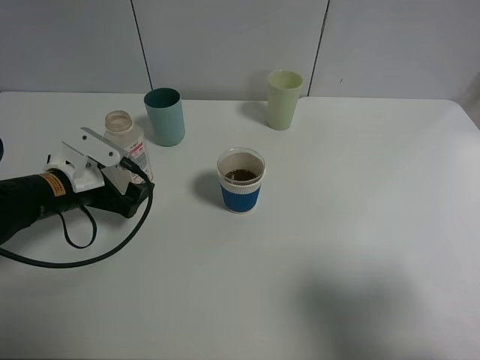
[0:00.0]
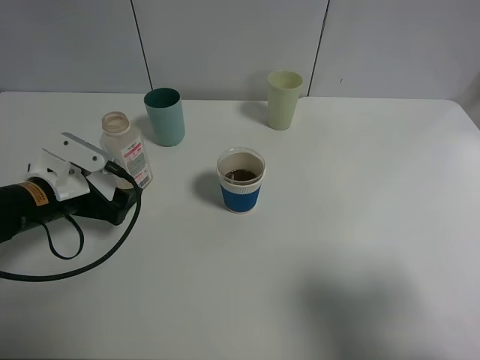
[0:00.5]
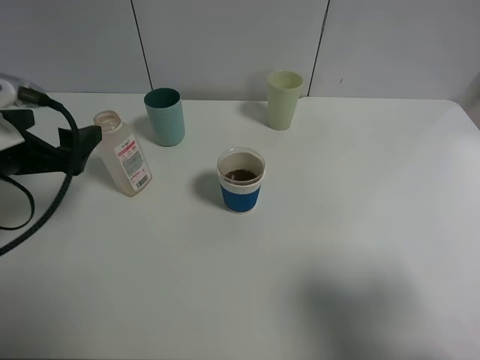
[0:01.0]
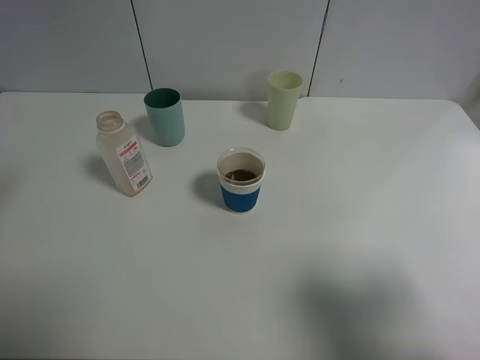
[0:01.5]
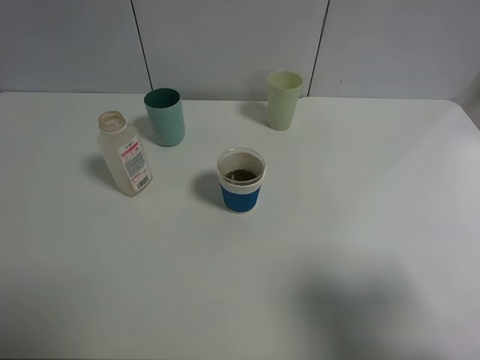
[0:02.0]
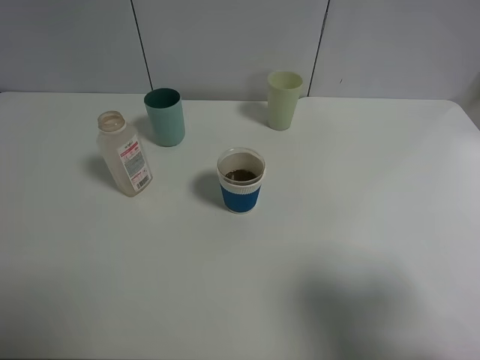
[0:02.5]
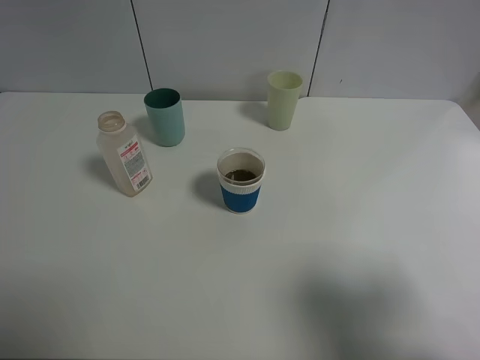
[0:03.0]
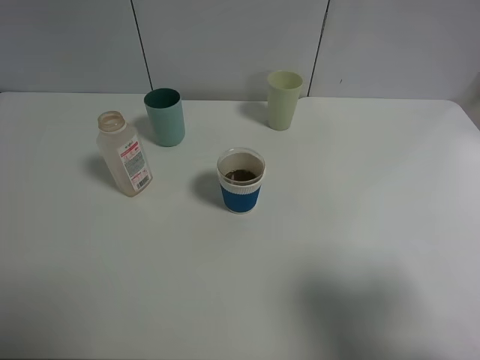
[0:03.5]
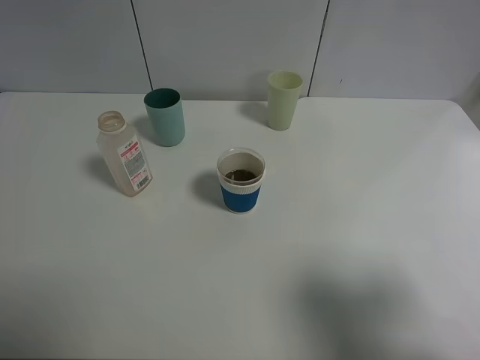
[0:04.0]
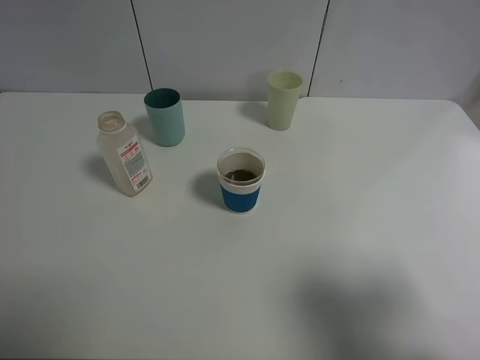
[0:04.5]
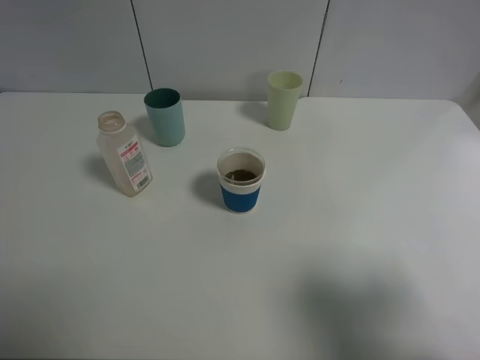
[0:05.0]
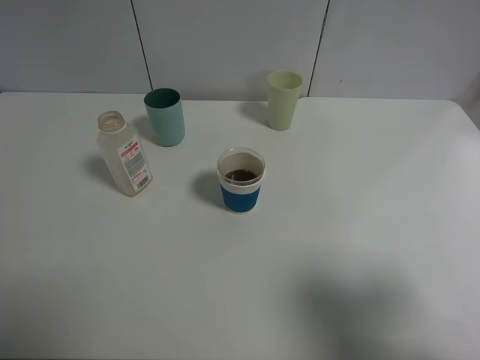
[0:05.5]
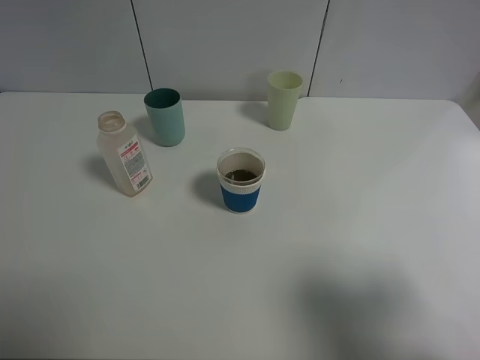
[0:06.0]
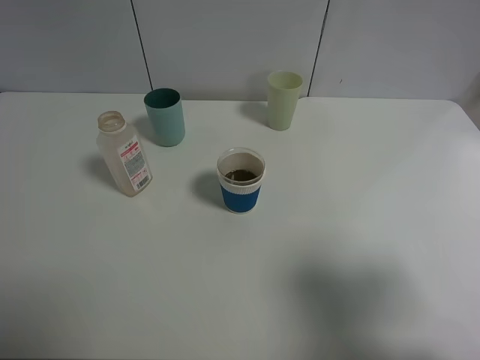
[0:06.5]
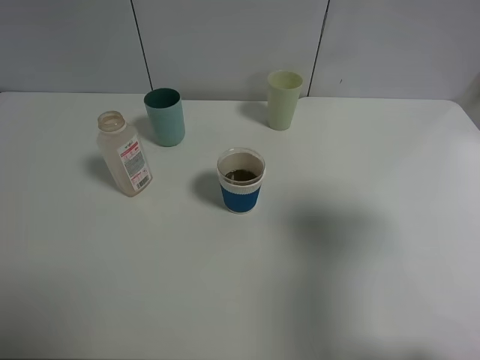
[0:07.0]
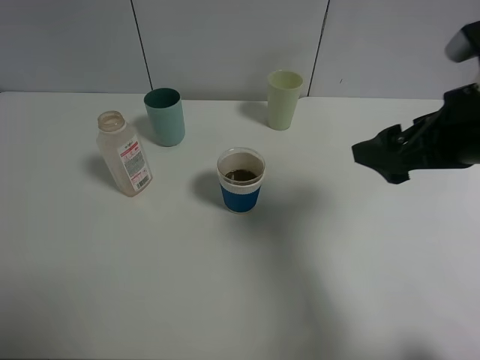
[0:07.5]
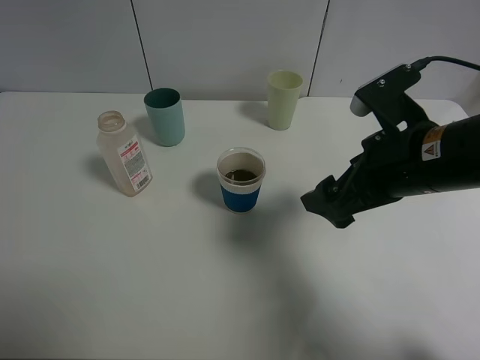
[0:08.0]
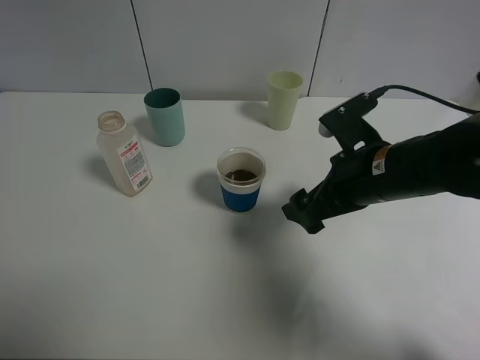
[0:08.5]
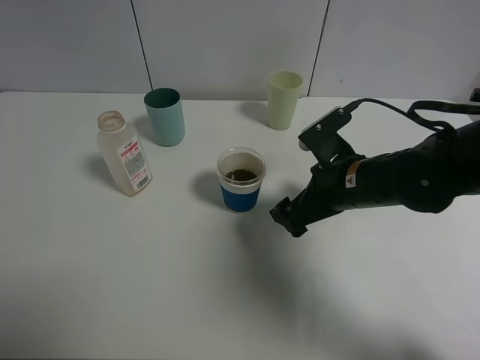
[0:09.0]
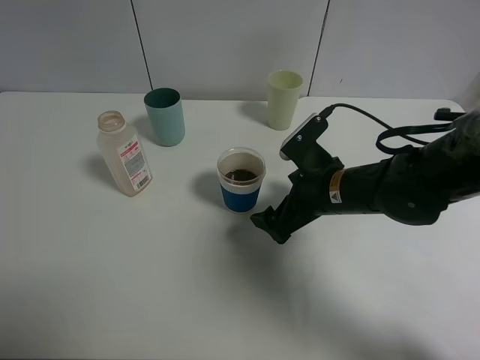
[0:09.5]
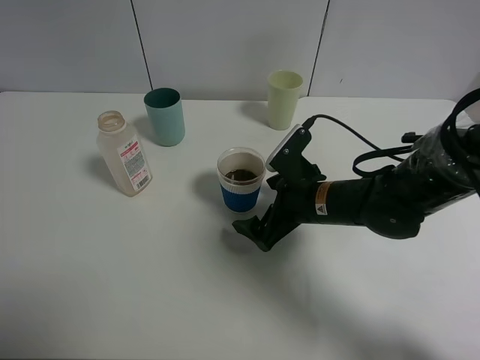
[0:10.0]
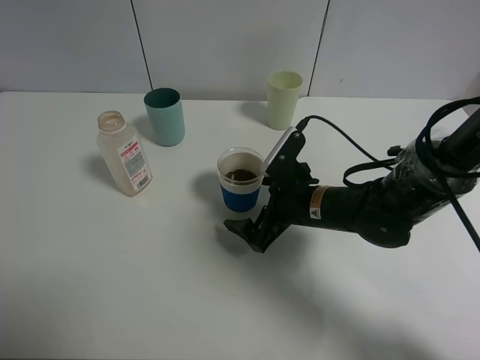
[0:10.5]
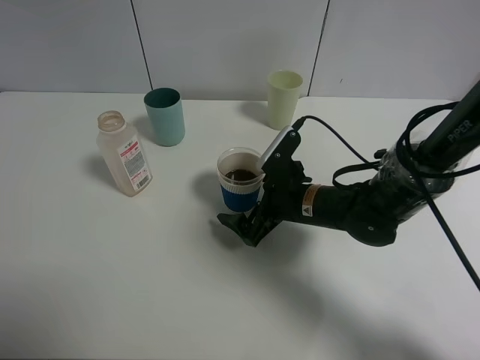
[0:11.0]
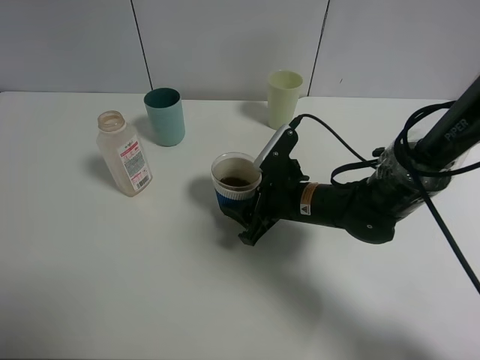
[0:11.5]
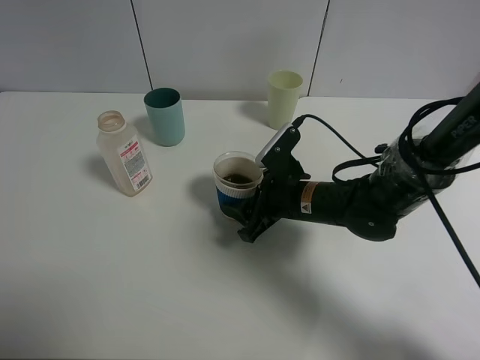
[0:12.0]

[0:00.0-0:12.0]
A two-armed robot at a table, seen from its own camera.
Task of the whole recording: use a clamp to hold the bottle of the drink, pour the beverage into a random cup, then clamp the cup containing the drink and pour the drink into another random cup.
0:00.0 to 0:02.0: The left gripper moves upward and backward, some 30 cm.
0:04.0 to 0:06.0: Both grippers stay put.
0:06.0 to 0:08.0: The right gripper heads forward and to the left, covering some 20 cm.
0:08.0 to 0:10.0: The right gripper is displaced downward, to the left and forward by approximately 15 cm.
0:10.0 to 0:12.0: The right gripper closes up.

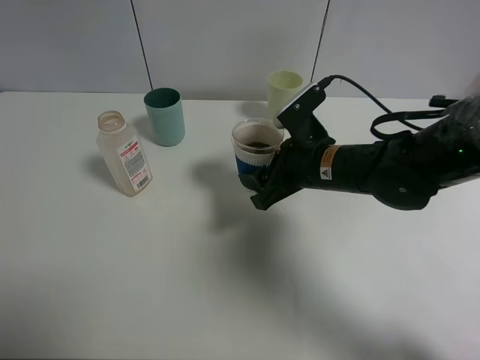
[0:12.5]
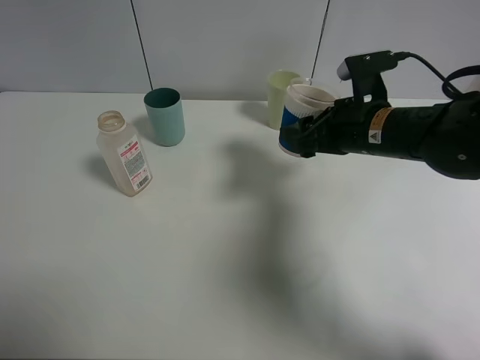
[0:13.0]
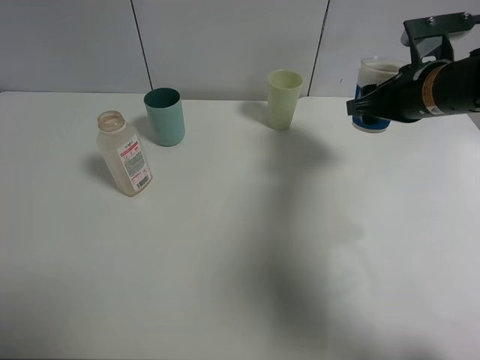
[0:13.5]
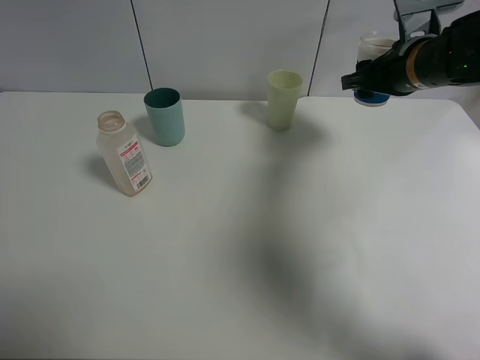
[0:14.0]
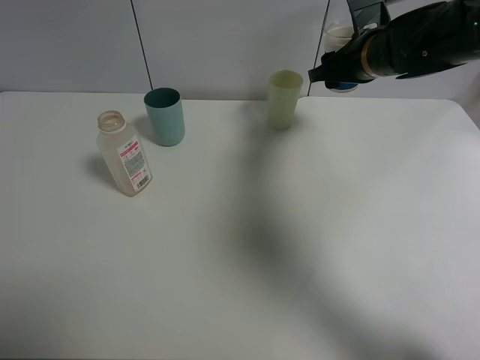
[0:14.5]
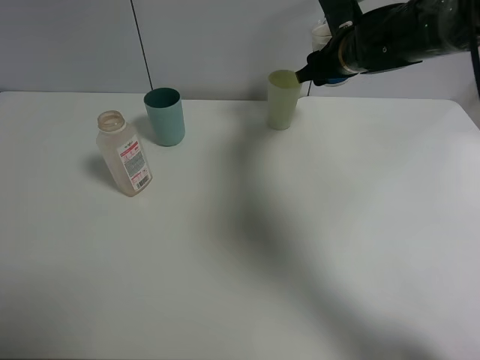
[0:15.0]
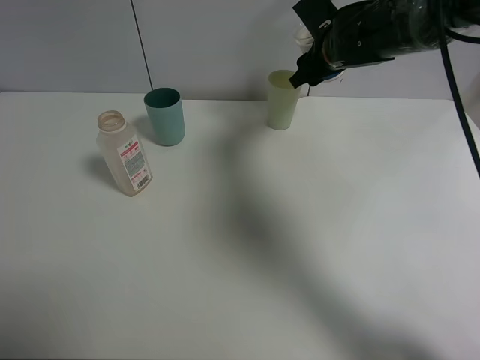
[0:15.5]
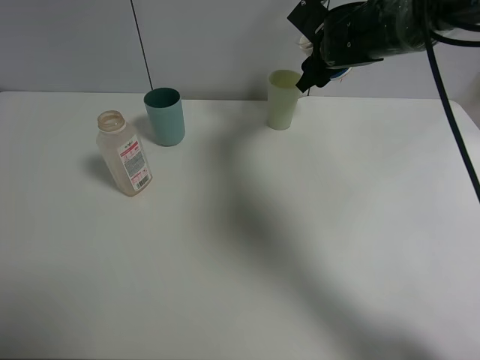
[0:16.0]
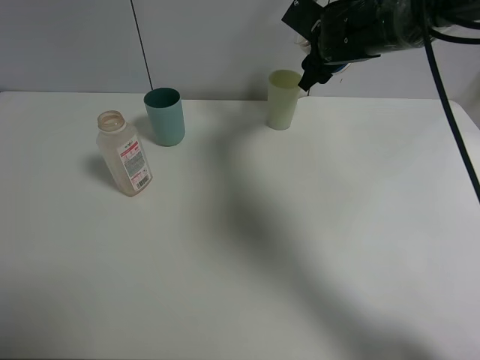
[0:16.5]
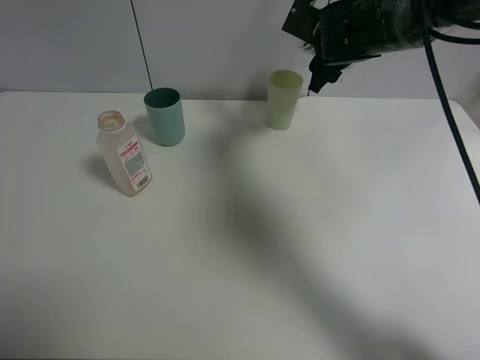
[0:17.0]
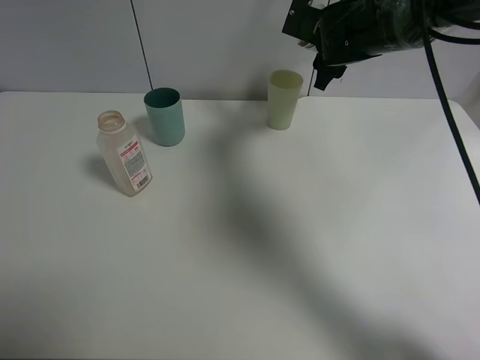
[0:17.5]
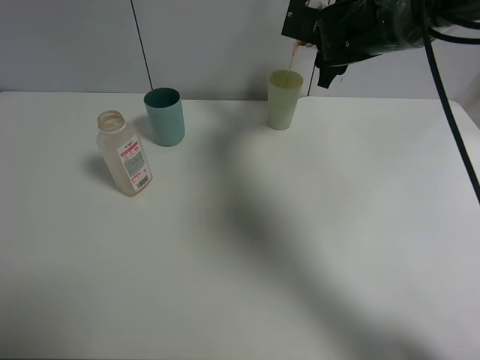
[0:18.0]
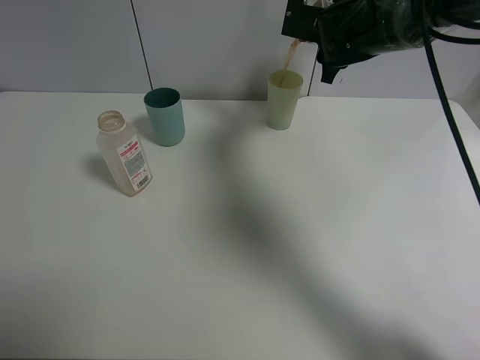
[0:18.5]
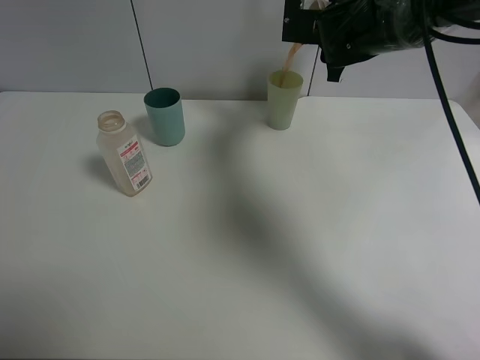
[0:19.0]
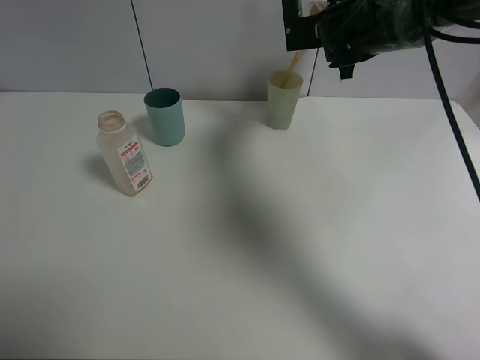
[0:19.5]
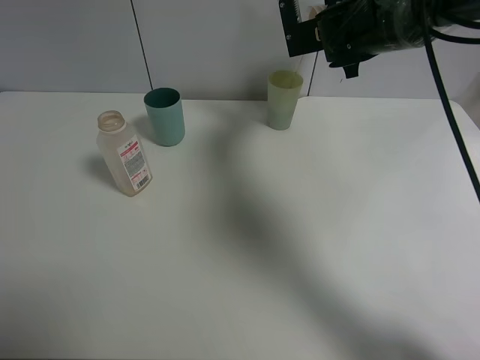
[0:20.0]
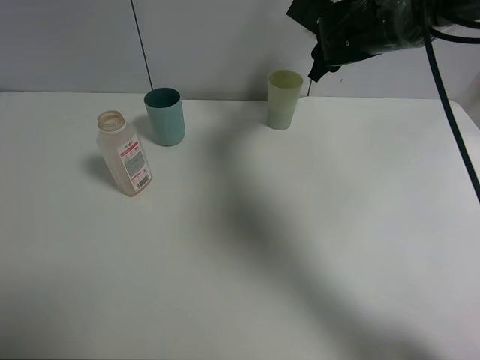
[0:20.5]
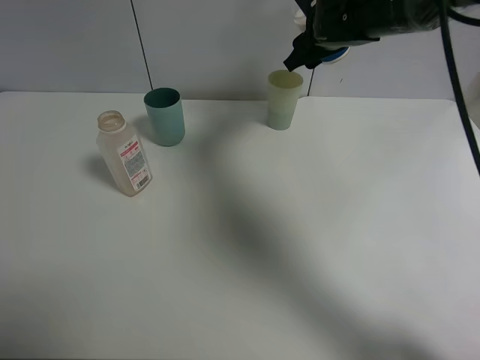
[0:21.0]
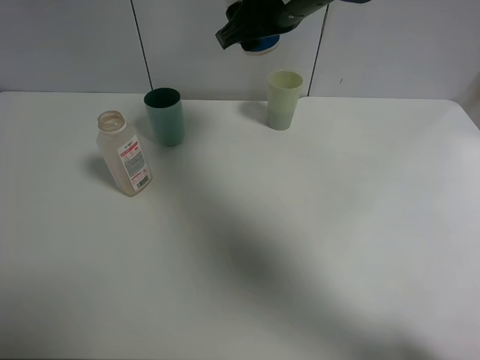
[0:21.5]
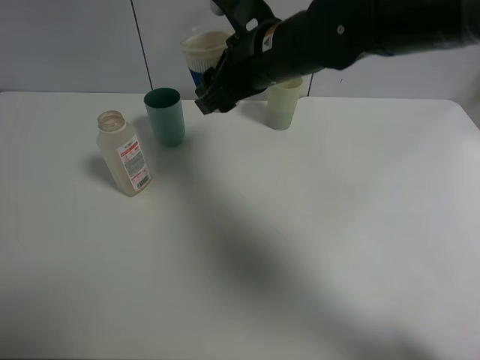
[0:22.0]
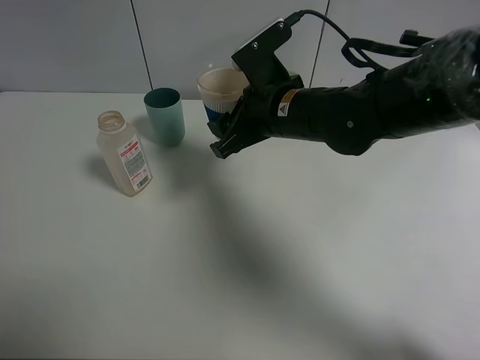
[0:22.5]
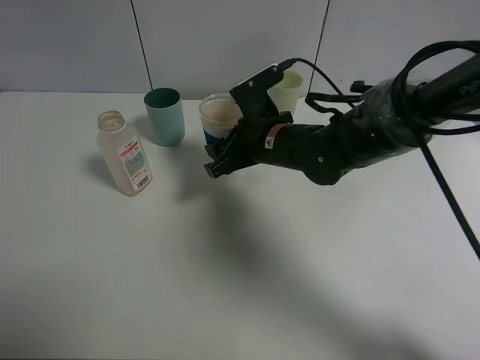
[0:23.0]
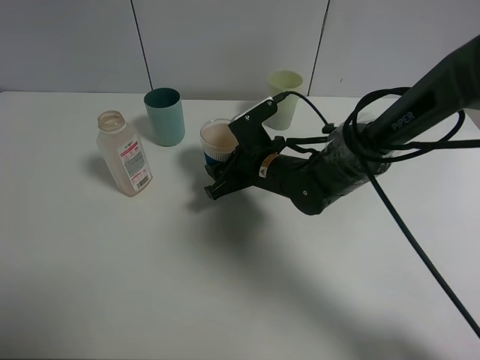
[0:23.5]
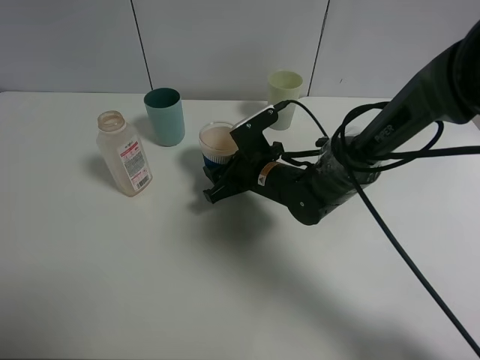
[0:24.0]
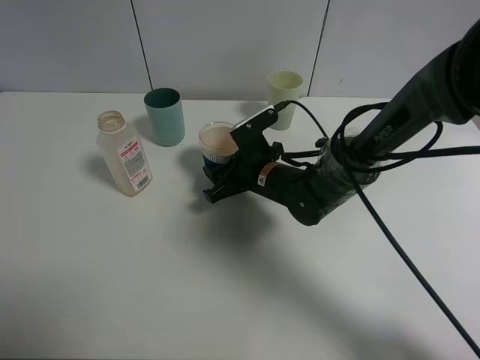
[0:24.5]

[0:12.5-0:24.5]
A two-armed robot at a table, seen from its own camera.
Task of the whole recording: use a clamp to hold the bottle of the drink, pour the beverage into a random cup, then clamp the cup containing the drink and pour the drink into another random cup.
Step, 0:13.0 to 0:20.5: Pour water into the green plastic cup with right gripper.
0:12.5 to 0:14.5: The right gripper goes about 15 cm forward, upward and to the right.
0:14.5 to 0:16.5: The right gripper moves to the left, some 5 cm.
0:20.5 to 0:22.5: The right gripper is displaced backward and to the left by roughly 15 cm.
0:22.5 to 0:24.5: The right gripper travels downward by approximately 15 cm.

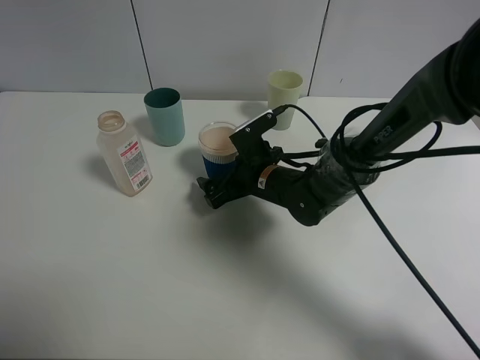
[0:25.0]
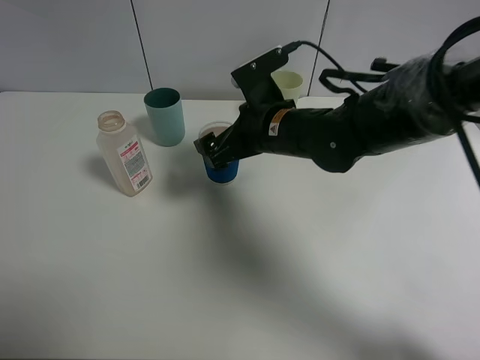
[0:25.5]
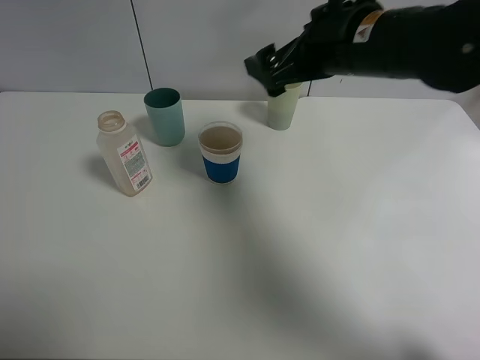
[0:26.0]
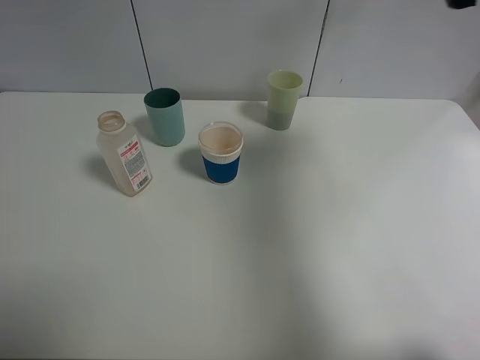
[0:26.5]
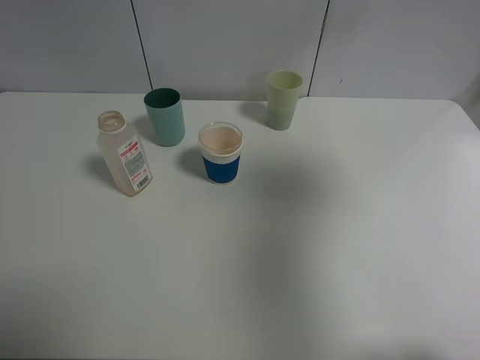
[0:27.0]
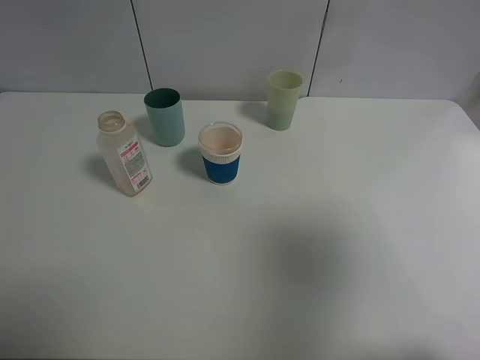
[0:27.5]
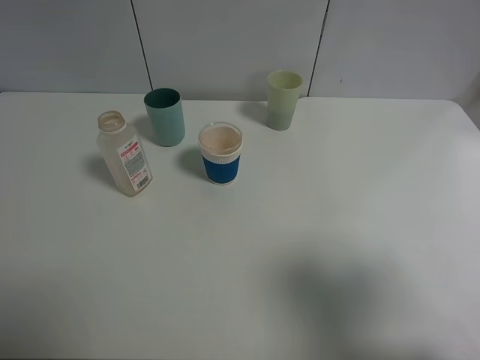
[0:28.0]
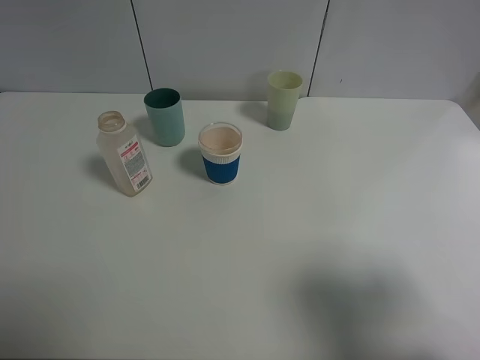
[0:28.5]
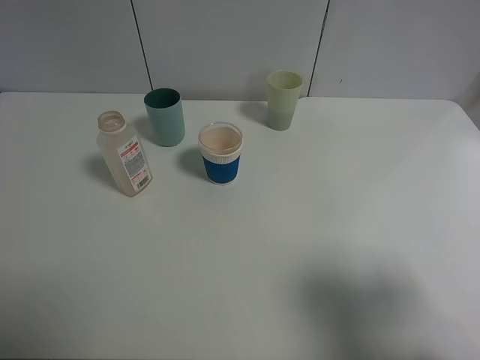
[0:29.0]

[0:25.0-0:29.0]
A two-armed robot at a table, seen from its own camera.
Task of the whole recording: use a clamp to hold the bottle of the drink, pour the beverage into a random cup, then clamp the cup containing the drink and pour the drink into another random cup.
0:25.0 to 0:27.0: The right gripper heads upward, to the right and backward, covering about 50 cm.
0:27.0 to 0:29.0: The right gripper travels backward and downward by some 20 cm.
